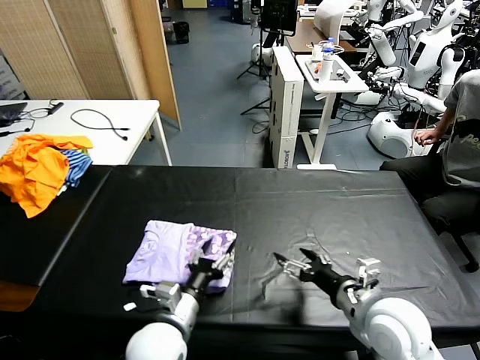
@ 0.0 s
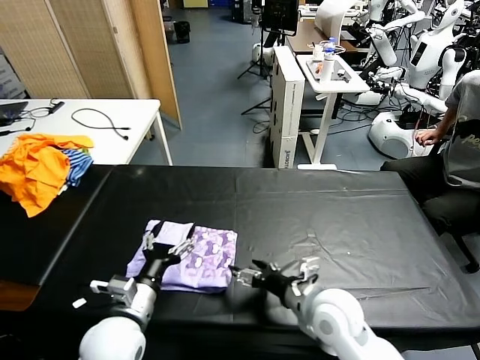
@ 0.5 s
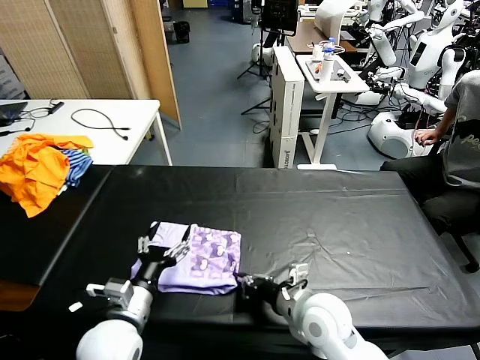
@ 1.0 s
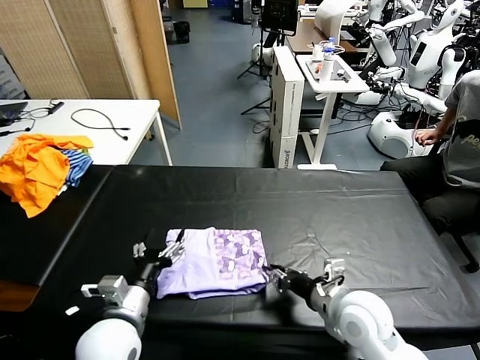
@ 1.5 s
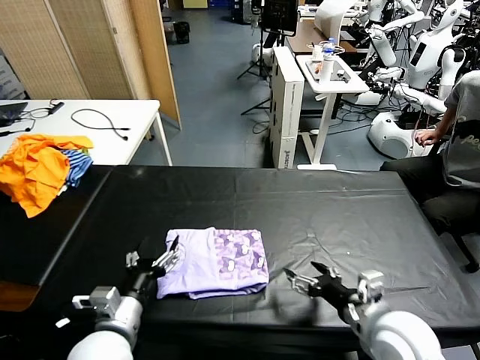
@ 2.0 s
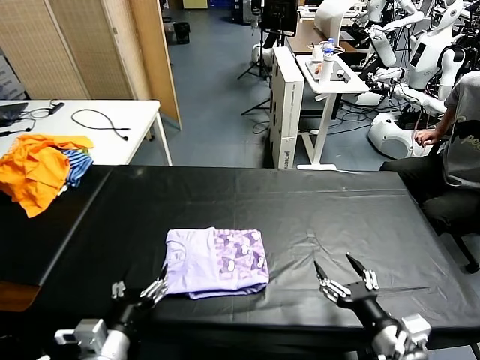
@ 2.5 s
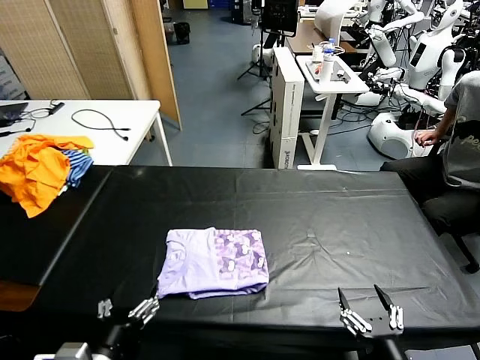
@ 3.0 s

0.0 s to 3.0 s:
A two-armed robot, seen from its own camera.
Task of the whole recording: fold and organize the clothes.
Step, 0.5 to 1.5 s: Drag the clothes to the center of the table.
0.0 to 1.5 s: The left gripper shifts approximately 10 cm to the left. Meanwhile the right gripper closes.
1.5 to 3.0 s: The left gripper shifts roughly 10 cm backward, while the right gripper is displaced backward by approximately 20 cm, and opens.

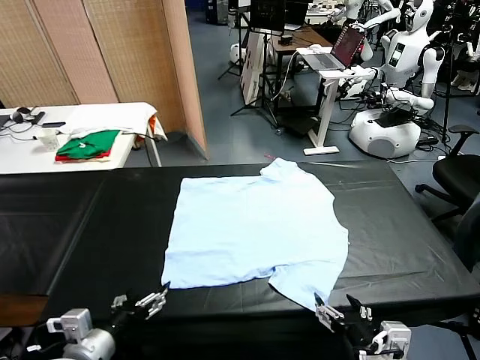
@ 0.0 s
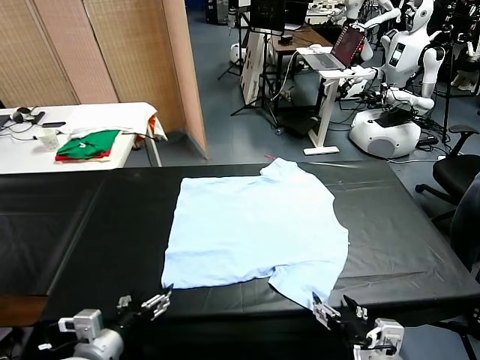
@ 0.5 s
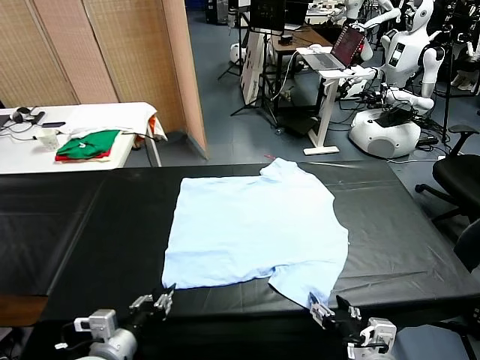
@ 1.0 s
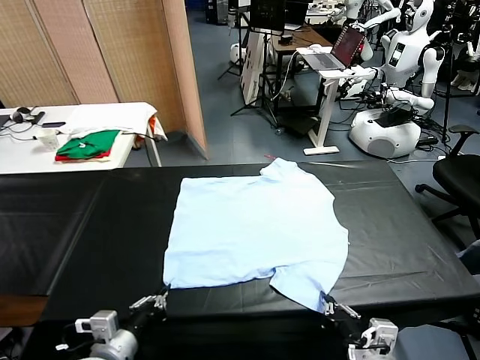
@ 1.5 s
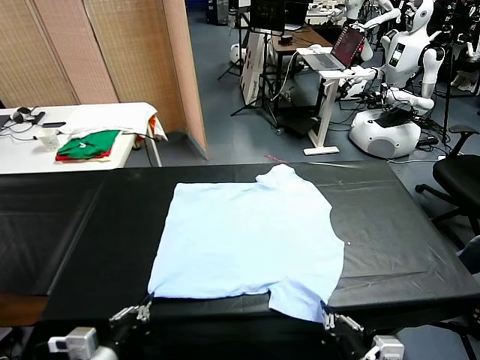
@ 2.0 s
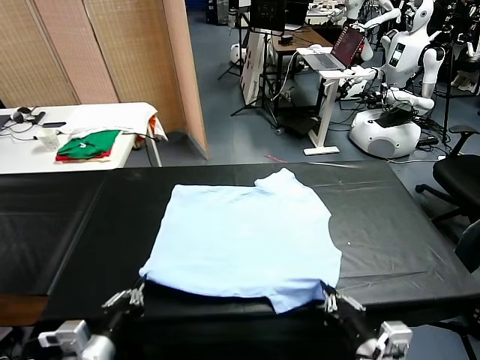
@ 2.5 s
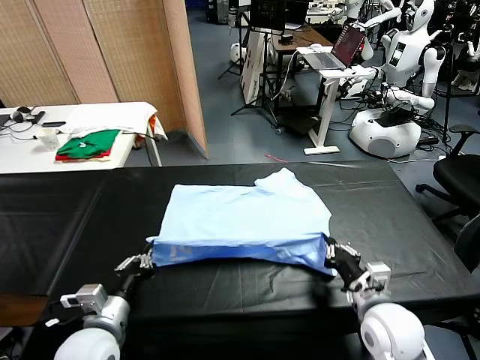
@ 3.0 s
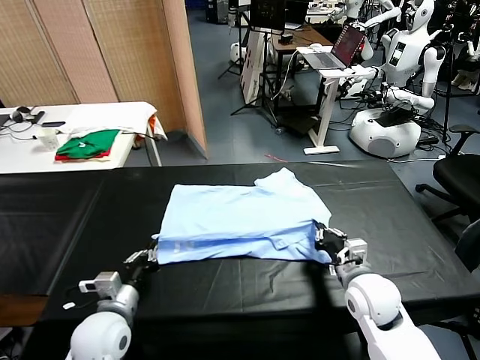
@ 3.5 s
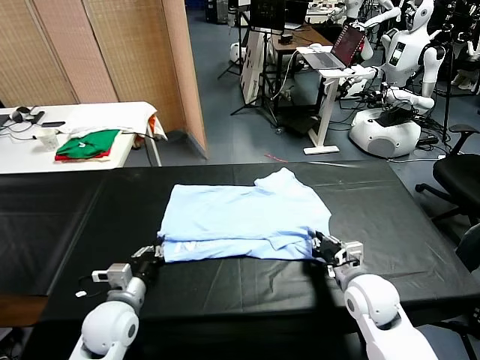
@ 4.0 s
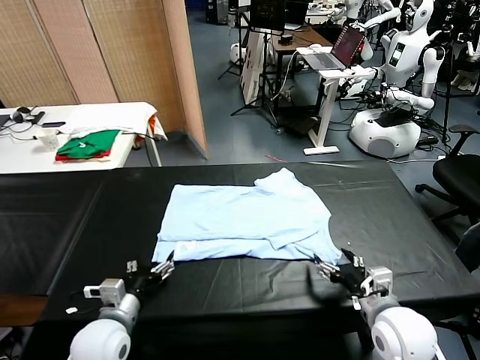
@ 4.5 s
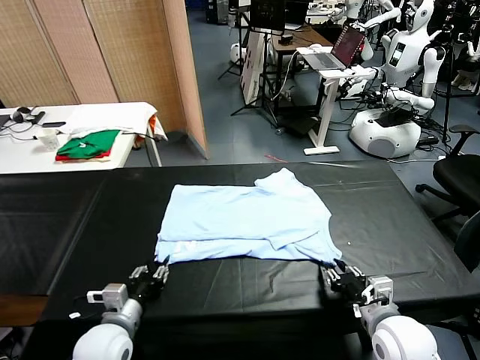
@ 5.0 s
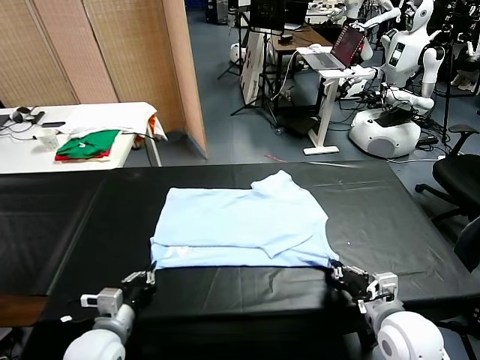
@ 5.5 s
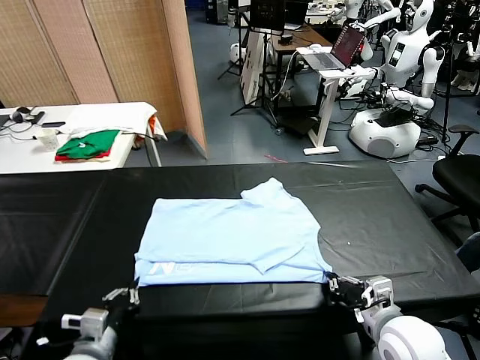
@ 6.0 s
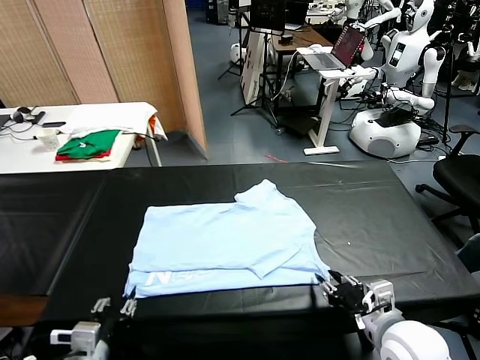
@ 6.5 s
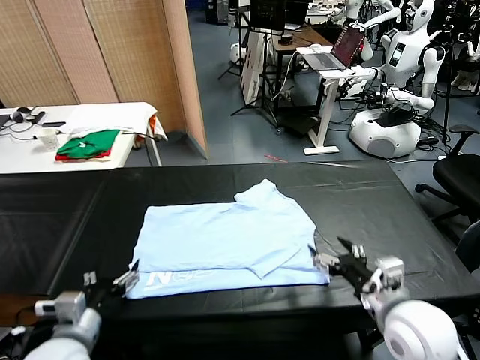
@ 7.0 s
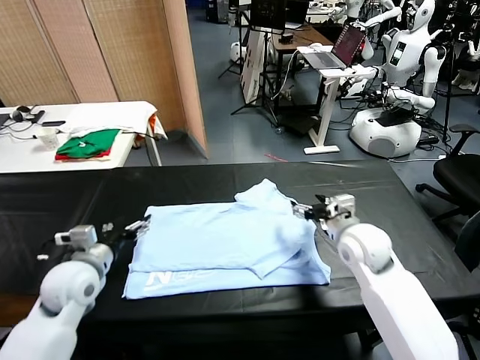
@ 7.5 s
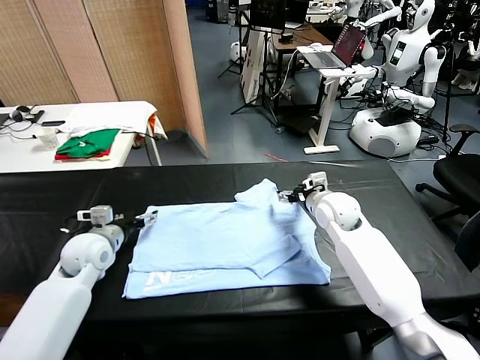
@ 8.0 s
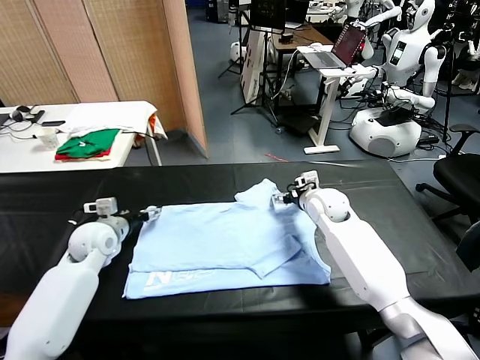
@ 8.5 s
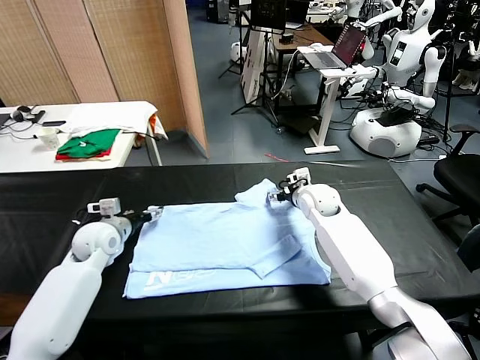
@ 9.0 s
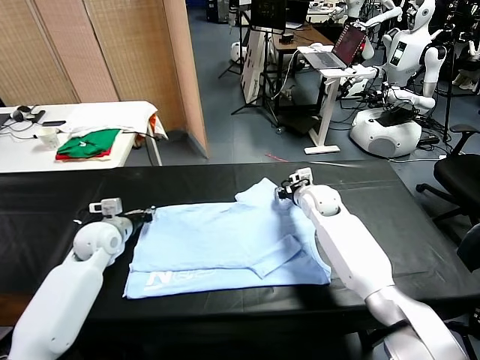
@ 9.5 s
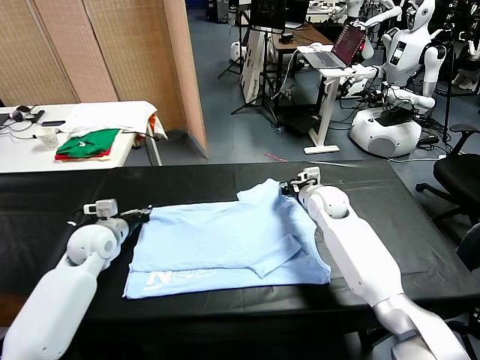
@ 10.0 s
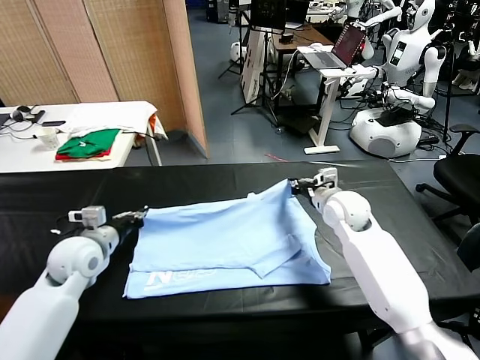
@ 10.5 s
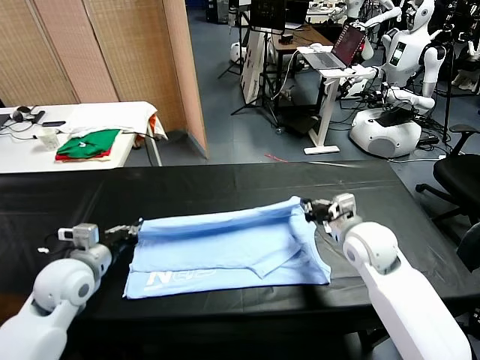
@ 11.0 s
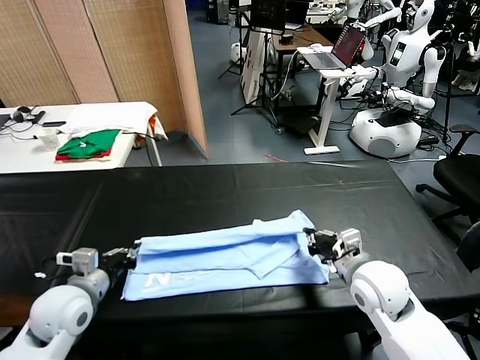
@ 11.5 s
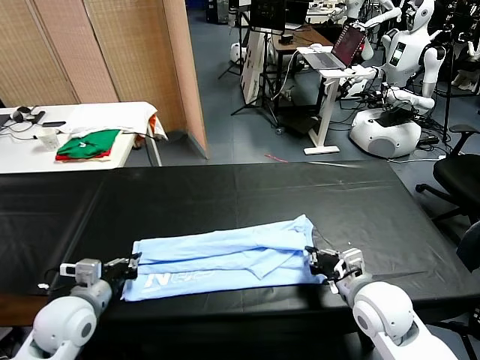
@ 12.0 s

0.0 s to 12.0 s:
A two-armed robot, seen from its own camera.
Task of the whole recording: fold and organize the clothes.
Step, 0.0 to 1.0 s: use both grippers simultaneously to clamp the lower edge of the clothing fabric.
Step, 1.5 to 4.0 s: use both grippers to drag the lower edge of the fabric forward and fold it over the upper edge.
Step, 4.5 to 6.5 s: Drag the clothes downward with both gripper.
Step, 7.0 to 9.5 s: use both grippers simultaneously to clamp the upper edge of the clothing fabric.
2.0 to 4.0 s: The left gripper moves forward and downward, approximately 15 cm, and opens its fingers, while the right gripper moves forward, some 15 cm, and opens its fingers.
4.0 to 6.0 s: The left gripper is displaced backward by some 10 cm, and closes up. Meanwhile the right gripper closes.
6.0 to 8.0 s: The two grippers go about 30 cm forward. The left gripper opens its fingers. Meanwhile the right gripper opens.
8.0 to 10.0 s: The right gripper closes. Meanwhile the left gripper closes its fingers.
10.0 to 12.0 s: The right gripper heads backward, covering some 20 cm. Meanwhile the left gripper goes about 15 cm backward.

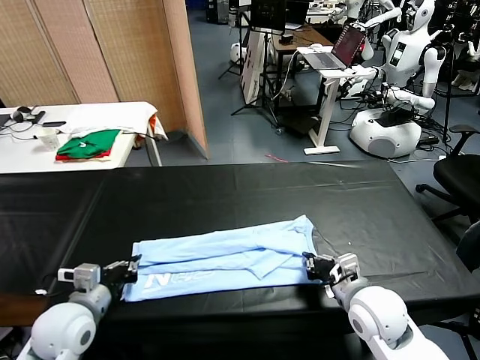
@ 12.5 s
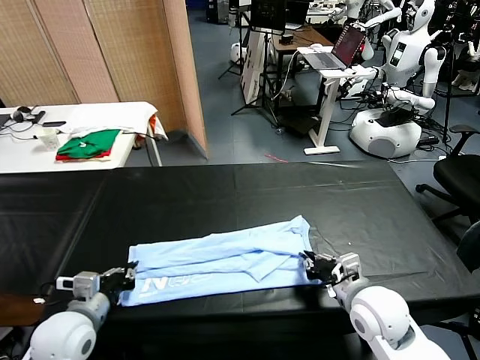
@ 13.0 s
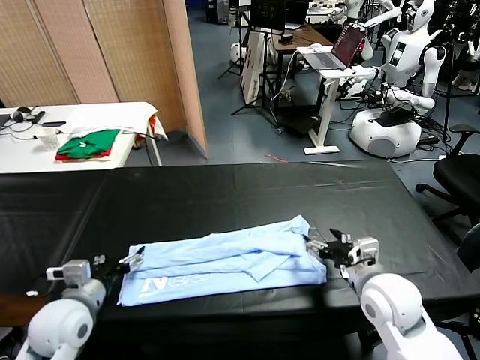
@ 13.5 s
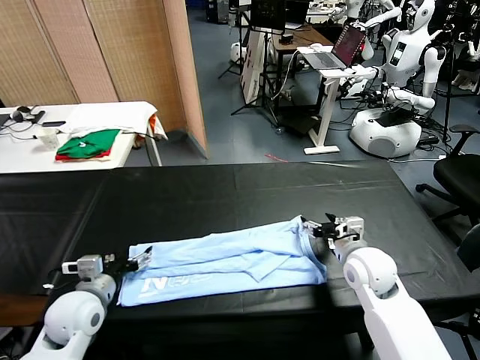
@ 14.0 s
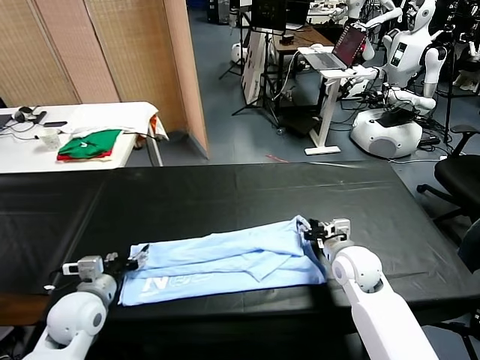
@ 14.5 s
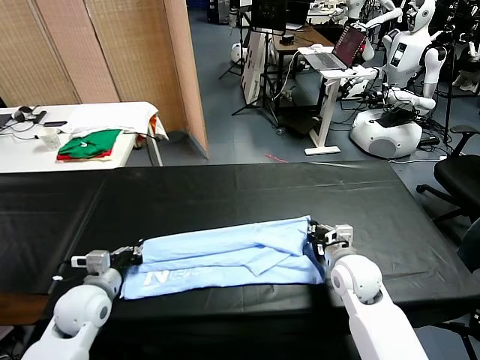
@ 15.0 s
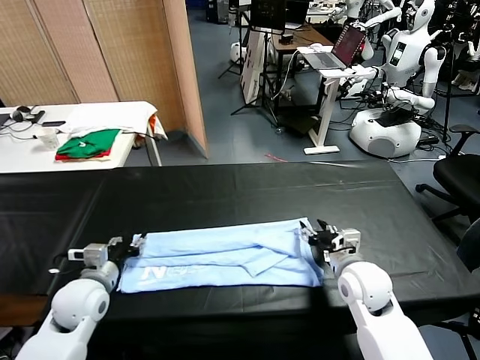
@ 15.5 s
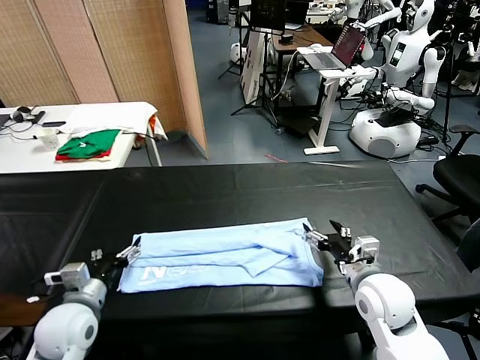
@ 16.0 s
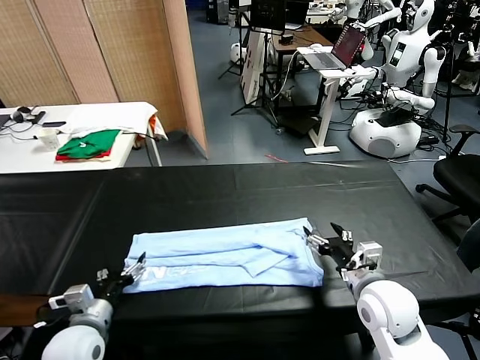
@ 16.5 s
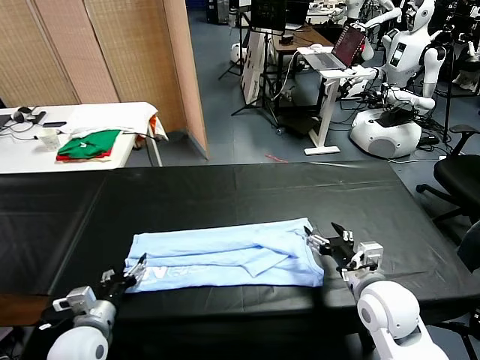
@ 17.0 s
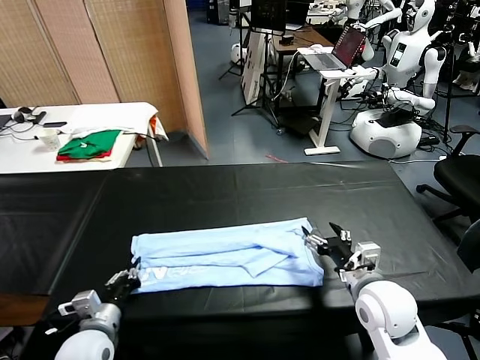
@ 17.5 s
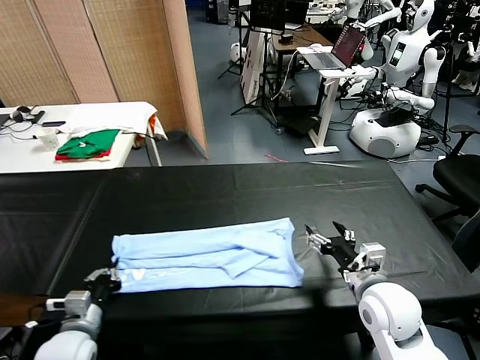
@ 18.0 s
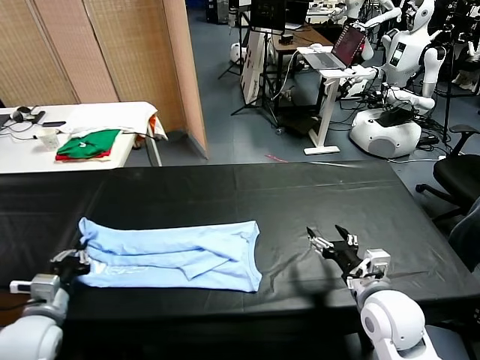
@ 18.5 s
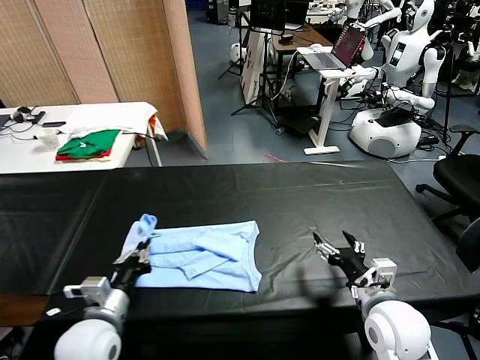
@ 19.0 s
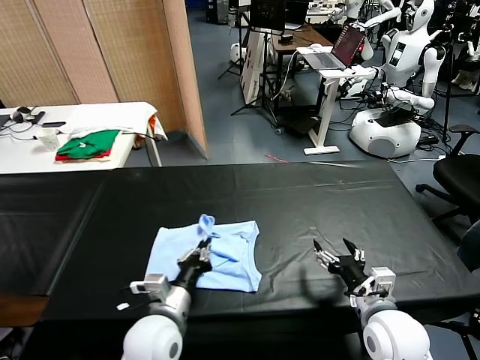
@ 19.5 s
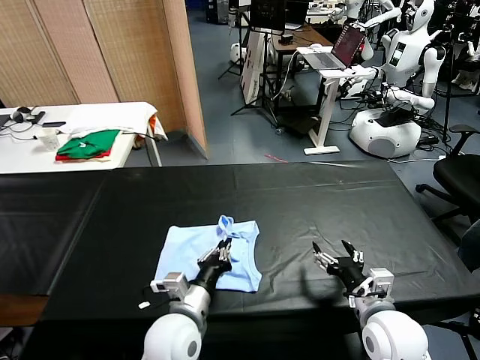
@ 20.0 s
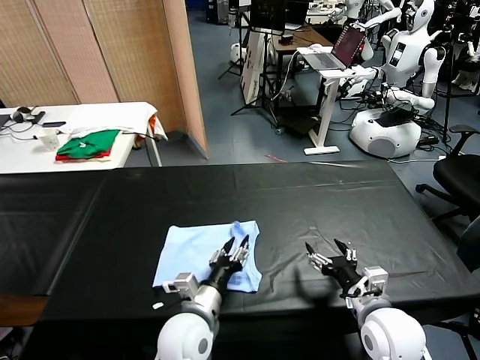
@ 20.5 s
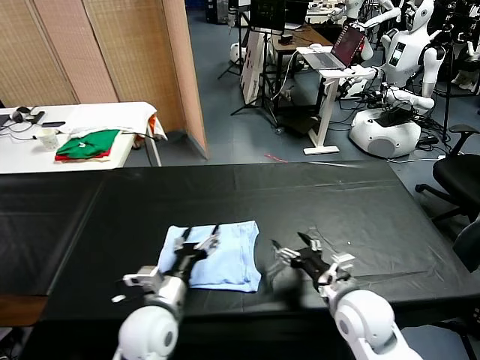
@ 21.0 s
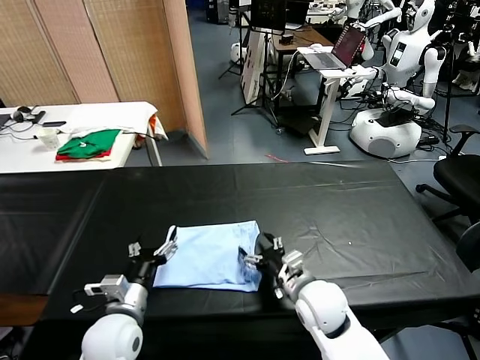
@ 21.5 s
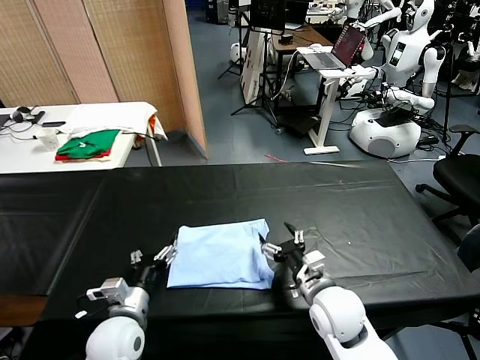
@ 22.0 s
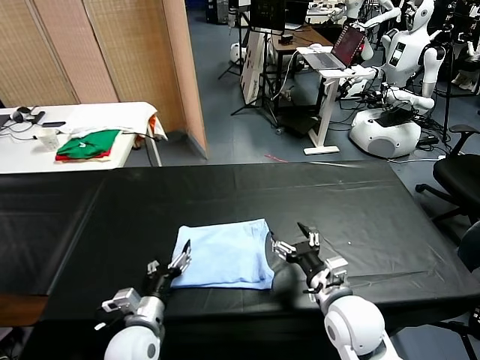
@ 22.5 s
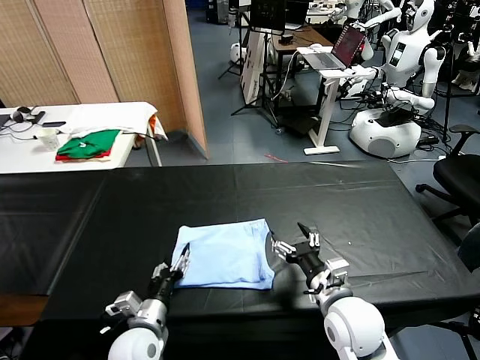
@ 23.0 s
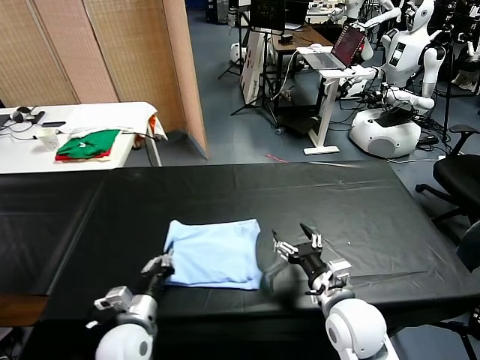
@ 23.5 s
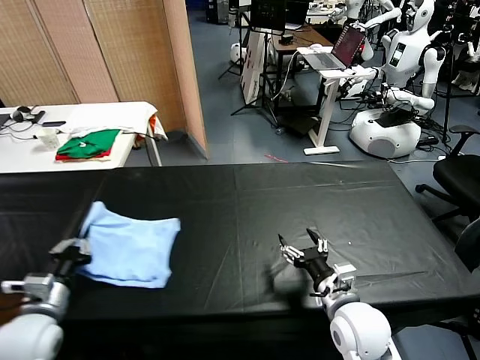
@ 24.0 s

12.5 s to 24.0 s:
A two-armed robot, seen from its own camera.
Task of the whole recording: fold and organize the clothes.
Step, 13.5 to 17.5 s: use the left gripper to clamp the left edge of the fabric.
Step, 18.0 to 20.5 s: use the left gripper to drag the left edge of the fabric to the left and folds it over the right edge.
12.5 to 14.5 s: The left gripper travels forward by approximately 5 cm, and opens, then closes again; the right gripper heads forward, covering about 10 cm, and opens and closes again.
14.5 to 16.5 s: The grippers both shift backward by some 10 cm. The left gripper opens up; the right gripper opens up.
16.5 to 18.5 s: The left gripper shifts approximately 5 cm upward, and closes up.
18.5 to 20.0 s: The left gripper travels to the right by some 15 cm, and opens its fingers.
20.0 to 22.0 s: The right gripper moves to the left, roughly 5 cm. The left gripper shifts approximately 10 cm to the left, and opens its fingers.
22.0 to 24.0 s: The left gripper travels upward by some 10 cm, reaches about 20 cm to the left, then returns, and closes.
